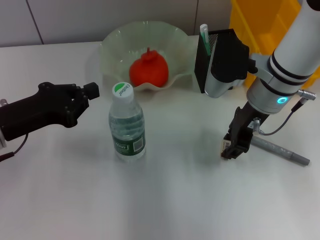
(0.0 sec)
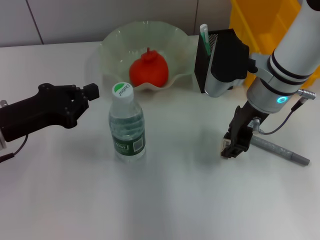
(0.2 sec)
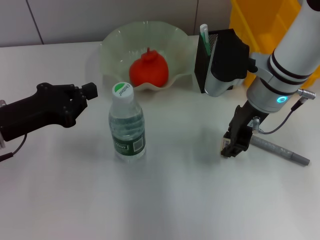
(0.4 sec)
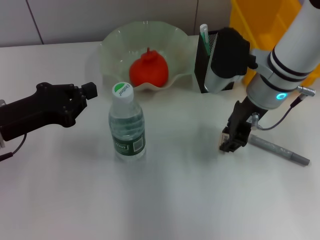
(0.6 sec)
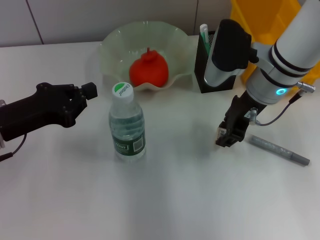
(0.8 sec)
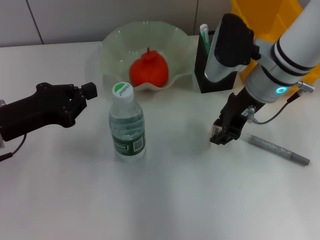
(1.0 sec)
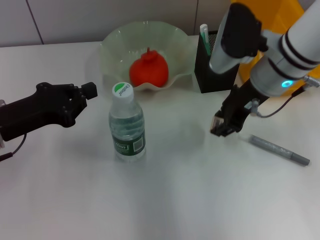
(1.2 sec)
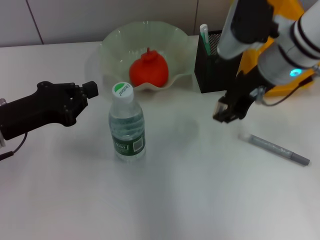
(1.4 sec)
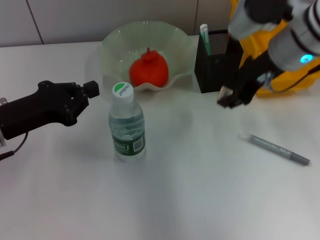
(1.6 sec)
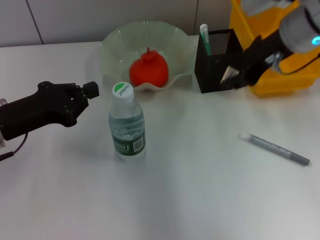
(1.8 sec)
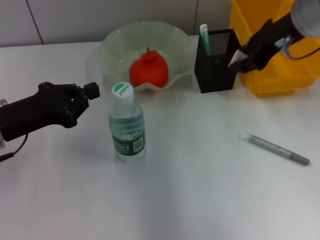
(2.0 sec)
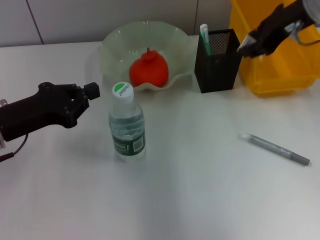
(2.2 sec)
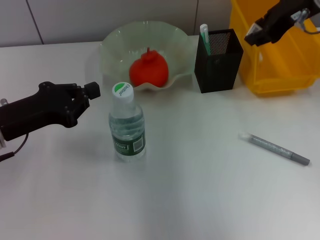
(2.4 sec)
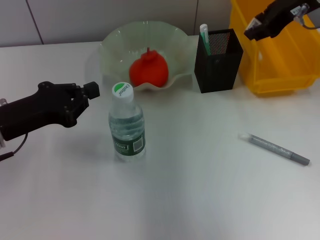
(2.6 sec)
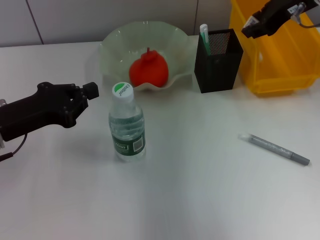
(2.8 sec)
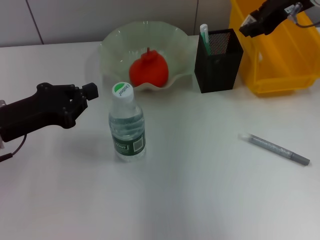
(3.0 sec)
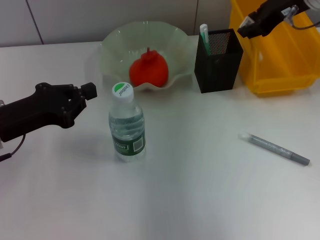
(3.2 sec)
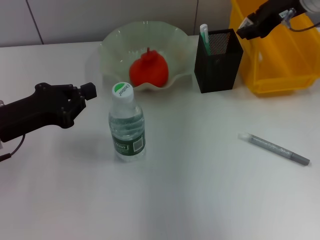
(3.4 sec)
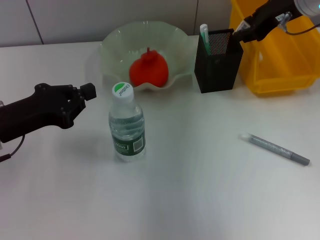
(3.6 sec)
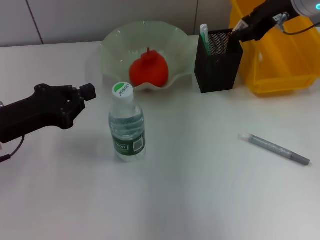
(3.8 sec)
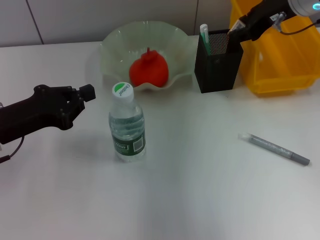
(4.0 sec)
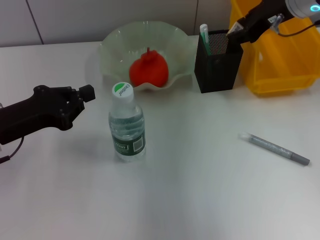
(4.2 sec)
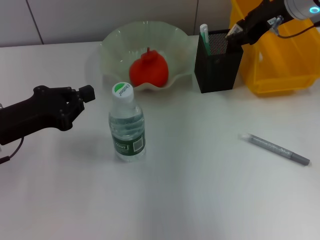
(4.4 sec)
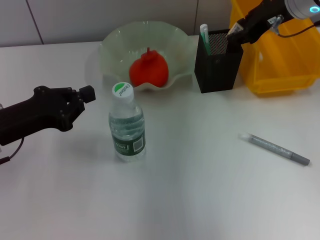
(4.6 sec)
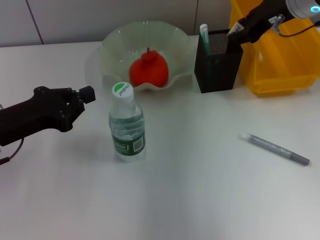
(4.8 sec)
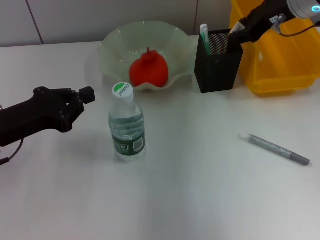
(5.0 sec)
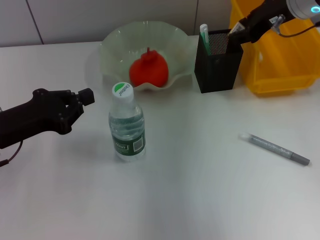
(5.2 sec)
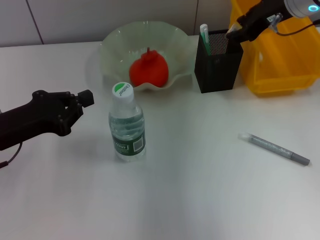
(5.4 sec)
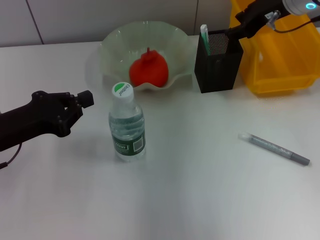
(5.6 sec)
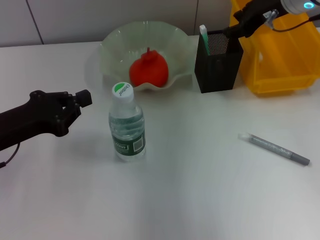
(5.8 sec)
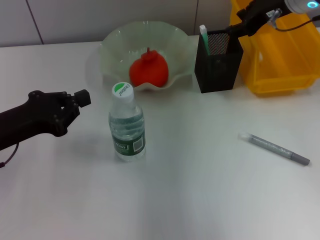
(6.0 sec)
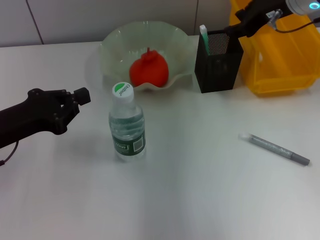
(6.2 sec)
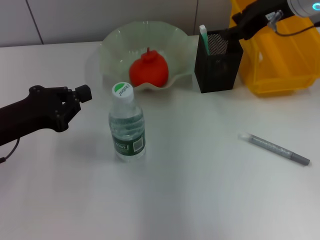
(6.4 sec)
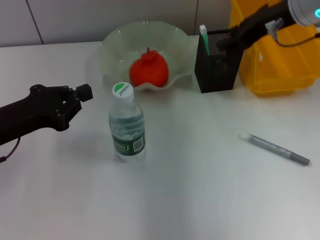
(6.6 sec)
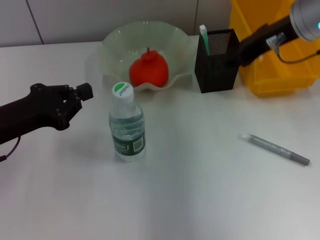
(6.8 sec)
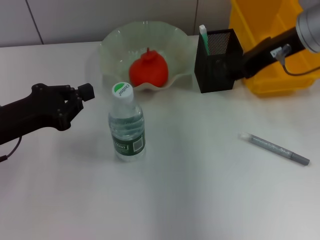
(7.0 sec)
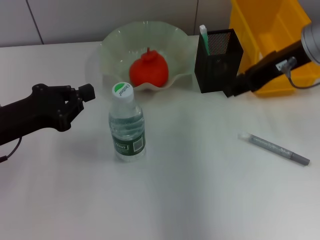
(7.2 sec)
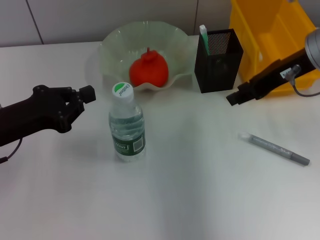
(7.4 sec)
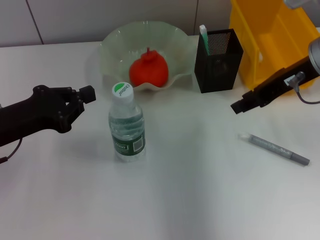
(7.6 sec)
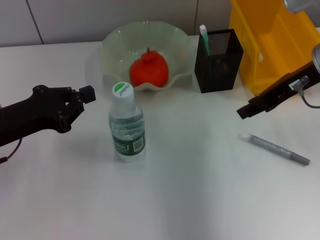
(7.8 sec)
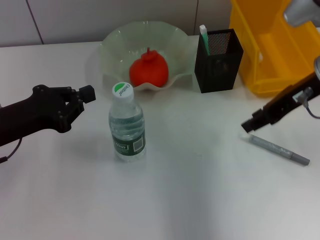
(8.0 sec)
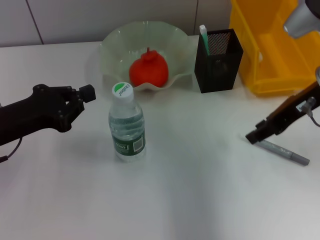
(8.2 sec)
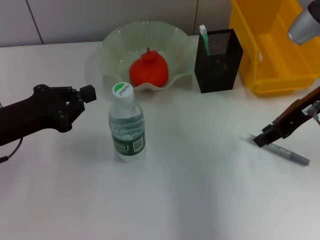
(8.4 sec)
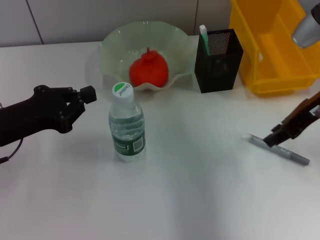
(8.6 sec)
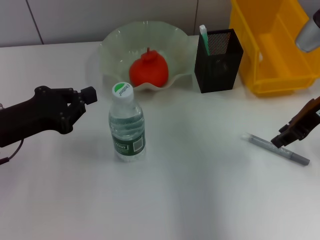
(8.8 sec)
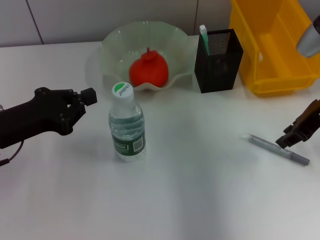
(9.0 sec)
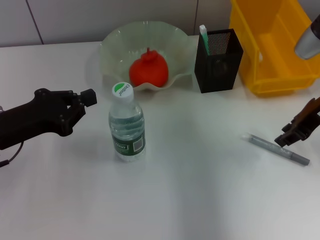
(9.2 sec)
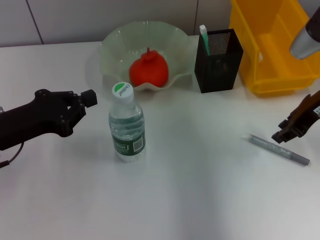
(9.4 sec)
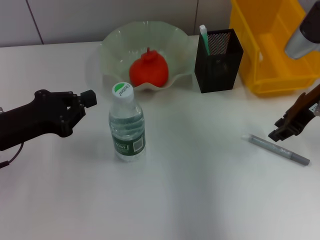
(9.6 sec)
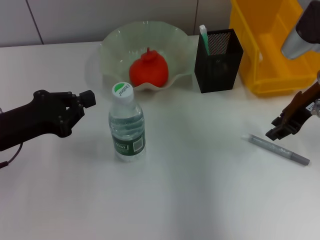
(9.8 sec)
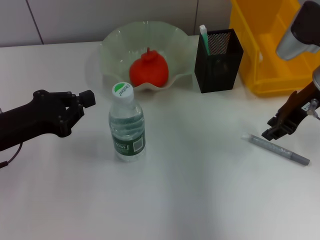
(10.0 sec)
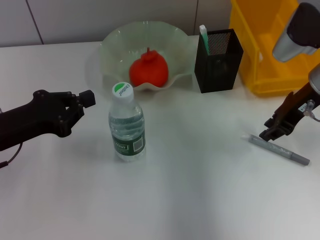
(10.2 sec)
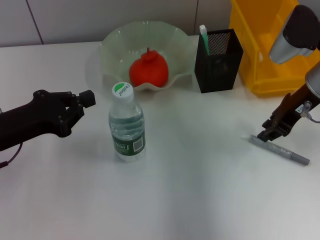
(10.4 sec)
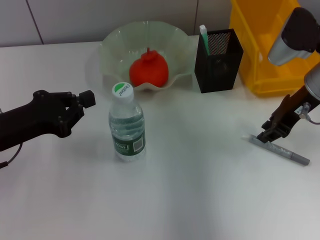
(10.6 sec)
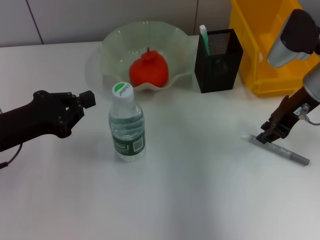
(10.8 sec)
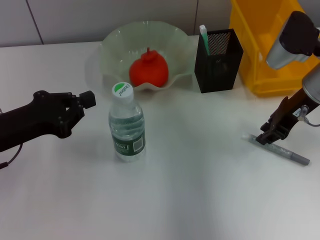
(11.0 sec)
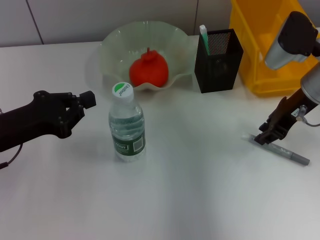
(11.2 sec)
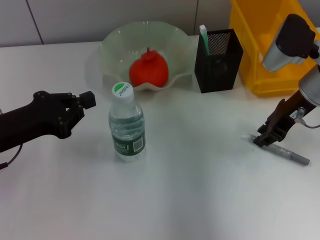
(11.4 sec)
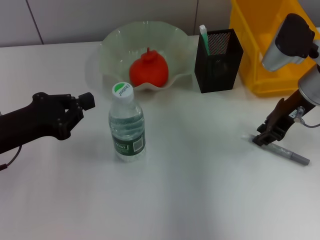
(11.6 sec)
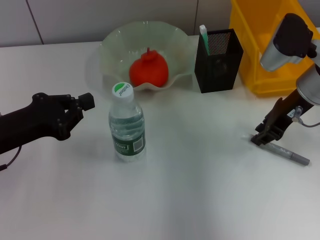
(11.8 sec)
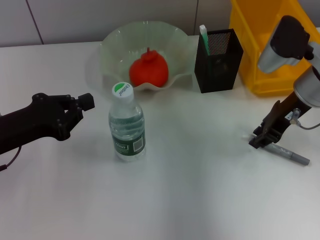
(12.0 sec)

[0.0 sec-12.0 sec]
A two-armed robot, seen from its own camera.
Step, 0.2 sec to 5.8 sec: Put the eraser into the pen holder with the right hand.
0.0 sec to 1.6 sec: The right gripper heads upward, covering roughly 5 cm.
1.6 sec to 3.0 sec: The right gripper travels forward and to the right by approximately 10 cm.
3.0 sec to 4.4 sec: The grippers make only small movements.
4.4 sec to 6.0 sec: The two grippers keep their place.
6.0 sec to 7.6 sec: The right gripper shifts roughly 10 cm backward.
7.6 sec to 9.0 sec: The right gripper shifts by about 5 cm.
9.0 sec to 12.0 sec: The grippers stay close to where they were, moving slightly.

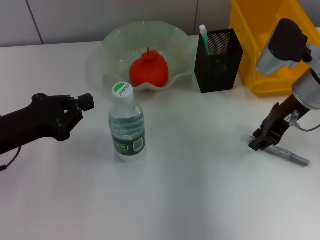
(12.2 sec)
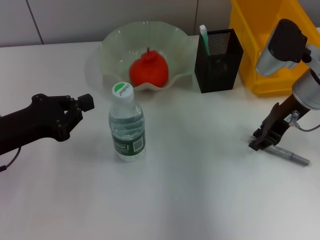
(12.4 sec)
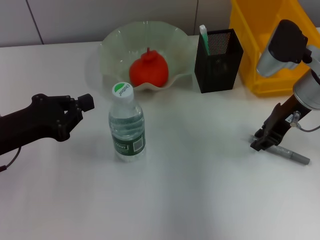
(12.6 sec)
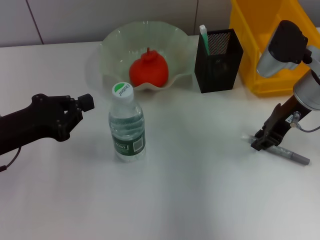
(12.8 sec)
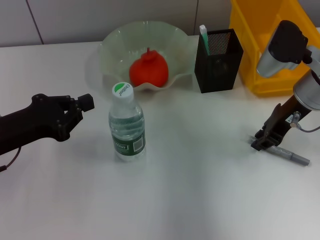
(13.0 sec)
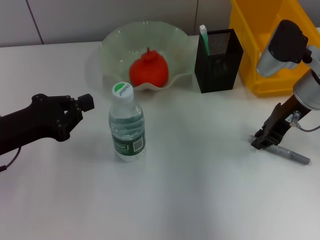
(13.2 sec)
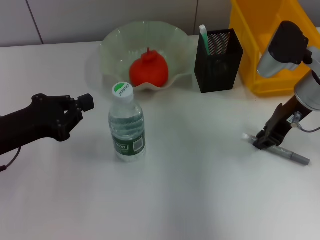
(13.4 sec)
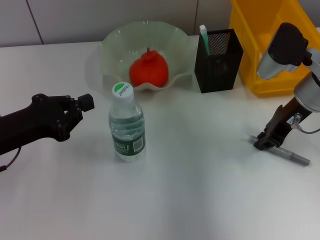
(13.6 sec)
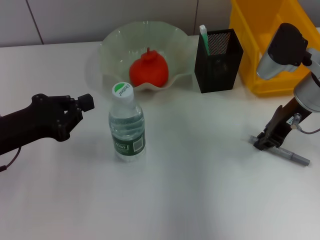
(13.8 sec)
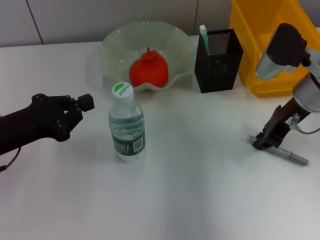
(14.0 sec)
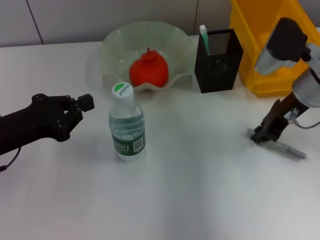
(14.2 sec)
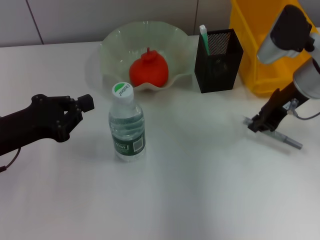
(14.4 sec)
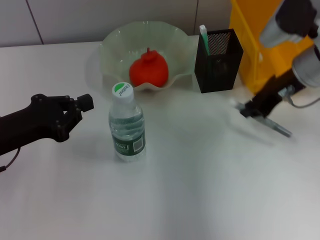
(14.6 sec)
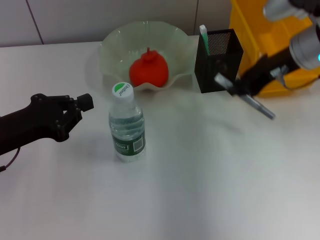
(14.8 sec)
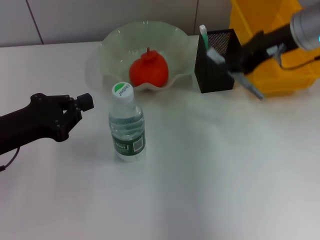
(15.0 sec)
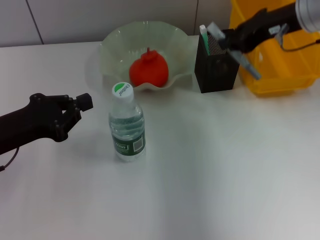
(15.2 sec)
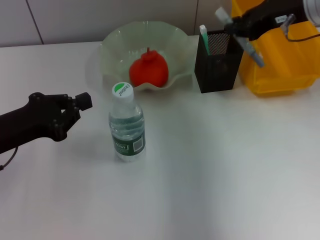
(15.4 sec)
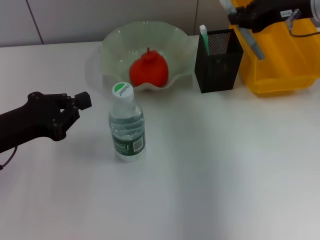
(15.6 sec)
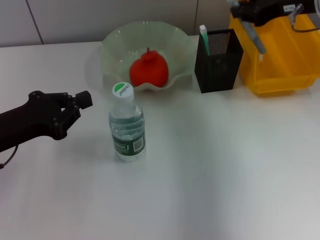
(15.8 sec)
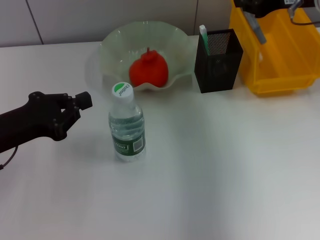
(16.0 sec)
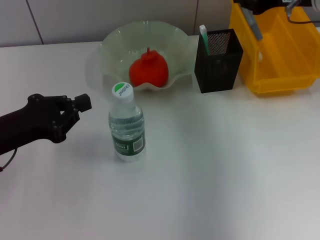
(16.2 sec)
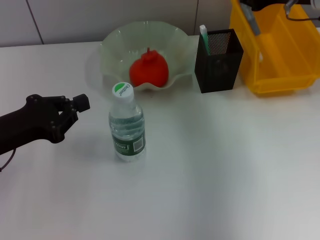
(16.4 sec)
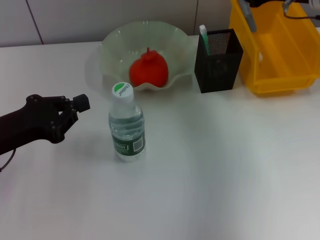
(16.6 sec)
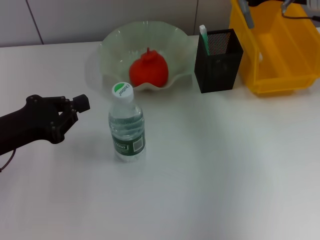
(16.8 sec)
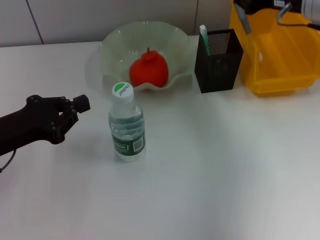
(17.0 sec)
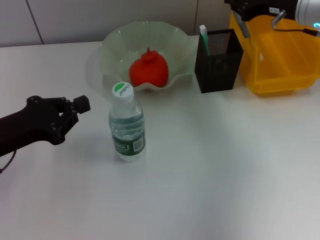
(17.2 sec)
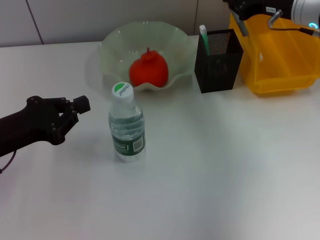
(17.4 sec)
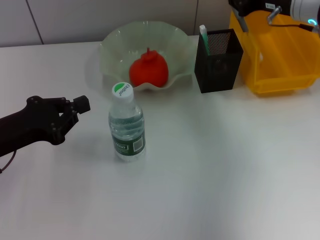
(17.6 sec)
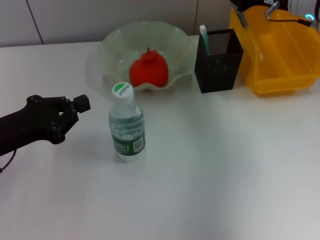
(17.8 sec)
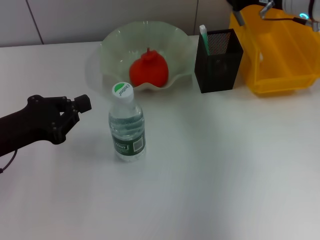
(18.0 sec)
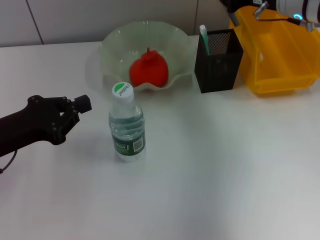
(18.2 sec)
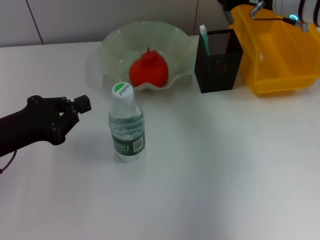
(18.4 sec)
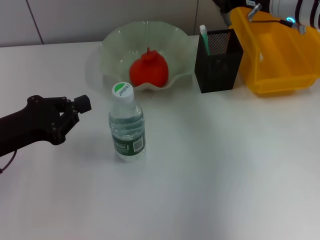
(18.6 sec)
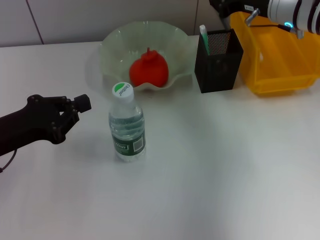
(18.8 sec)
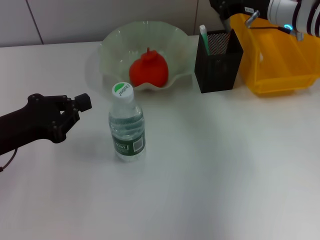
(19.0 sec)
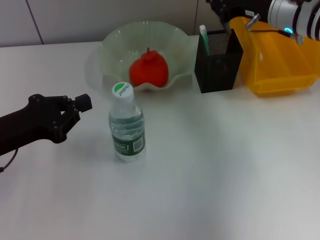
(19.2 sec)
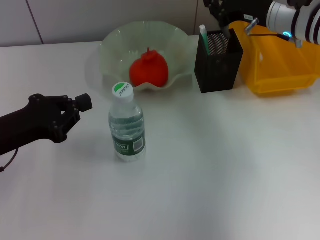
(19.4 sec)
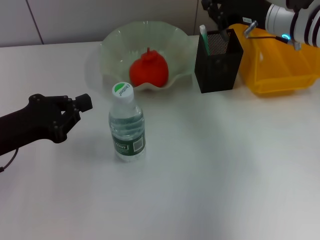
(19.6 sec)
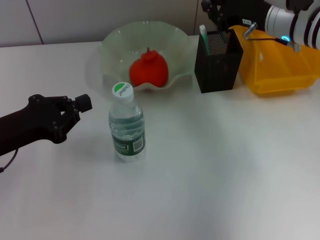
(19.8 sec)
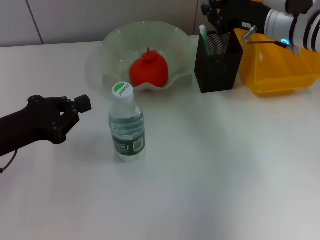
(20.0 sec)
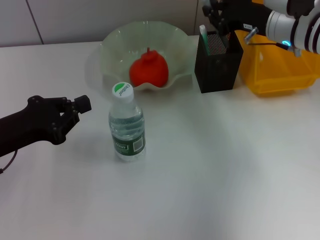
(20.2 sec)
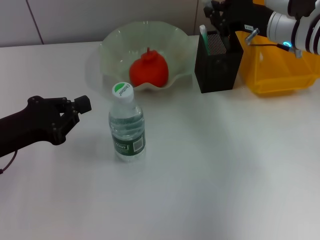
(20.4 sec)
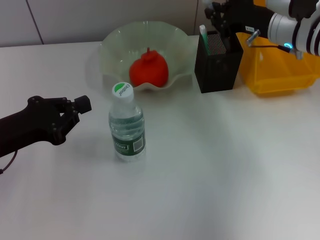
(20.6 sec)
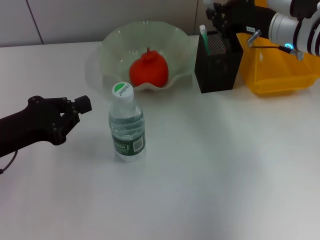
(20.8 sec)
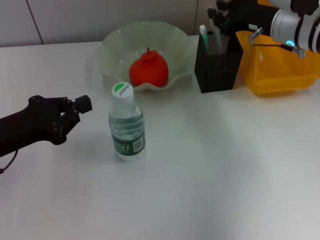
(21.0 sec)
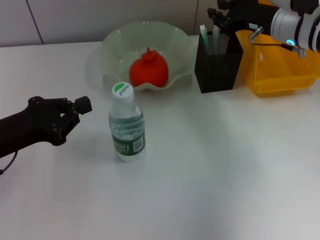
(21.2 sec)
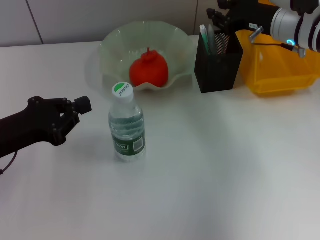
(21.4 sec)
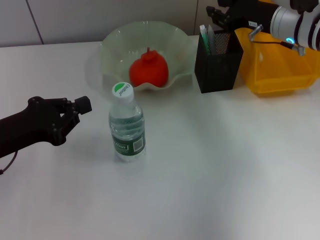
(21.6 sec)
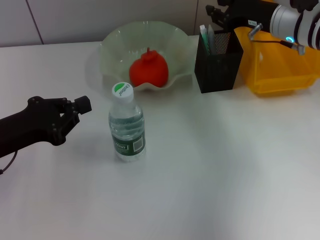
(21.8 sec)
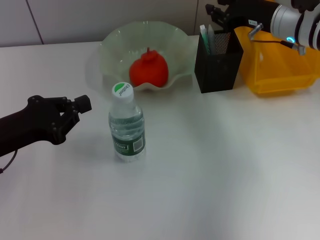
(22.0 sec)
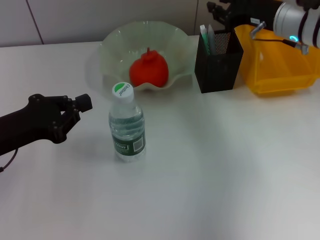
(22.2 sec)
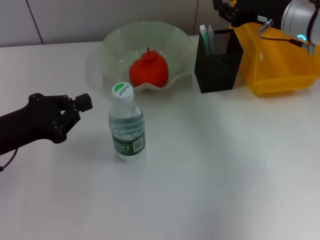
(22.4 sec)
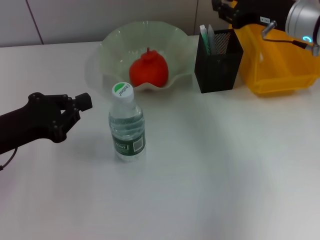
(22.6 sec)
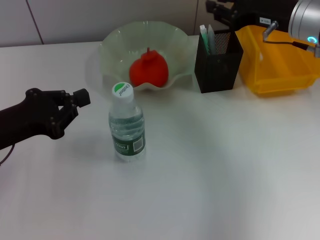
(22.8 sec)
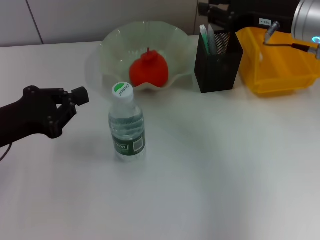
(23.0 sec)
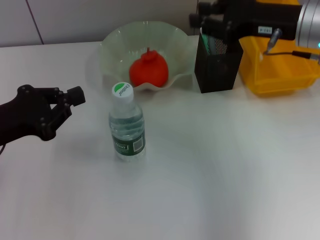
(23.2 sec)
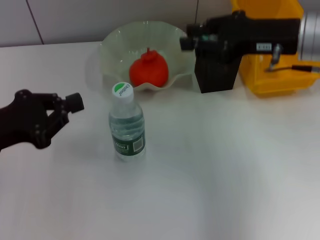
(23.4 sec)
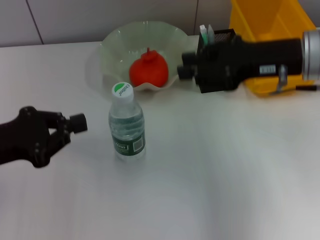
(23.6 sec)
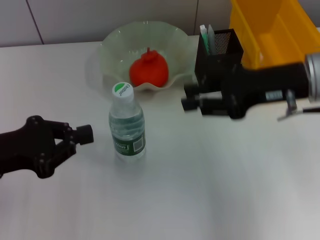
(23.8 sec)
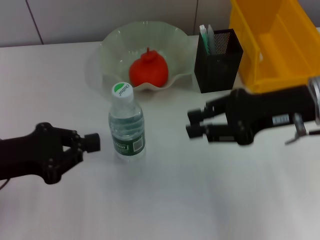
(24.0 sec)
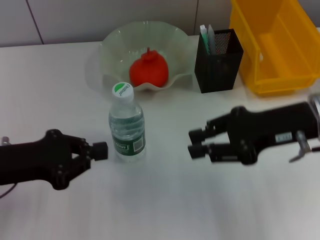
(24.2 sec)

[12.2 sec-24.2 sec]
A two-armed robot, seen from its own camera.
Step, 13.8 sec to 21.4 sec: Place the gray glue into the pen holder with the right hand.
12.2 sec to 13.8 sec: Both grippers stay put.
13.8 sec to 15.2 sec: The right gripper moves upward, some 10 cm.
16.6 sec to 18.2 sec: The grippers move only a little.
18.2 sec to 19.8 sec: The grippers move only a little.
19.8 sec to 21.2 sec: Neither gripper changes place.
21.2 sec to 22.6 sec: The grippers make only small movements.
22.6 sec to 24.2 sec: The right gripper is displaced backward by about 15 cm.
